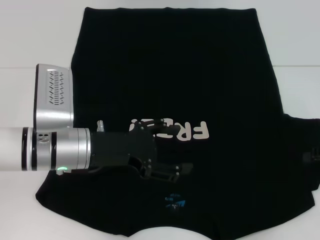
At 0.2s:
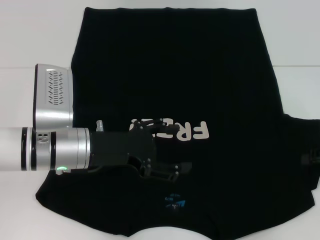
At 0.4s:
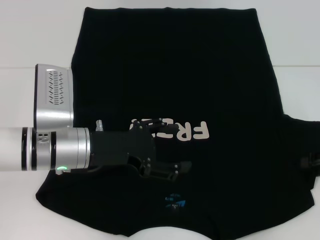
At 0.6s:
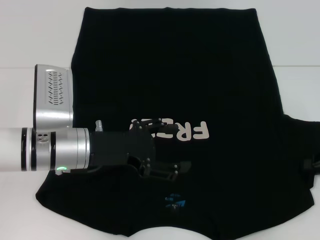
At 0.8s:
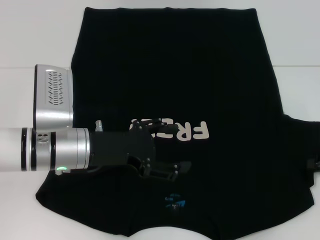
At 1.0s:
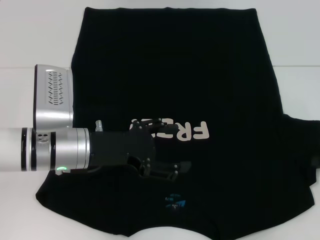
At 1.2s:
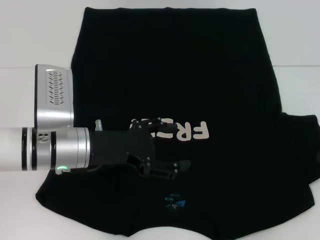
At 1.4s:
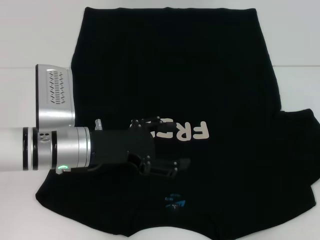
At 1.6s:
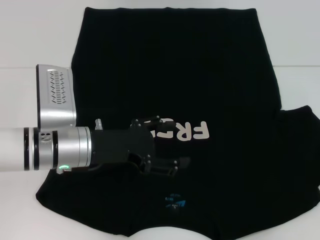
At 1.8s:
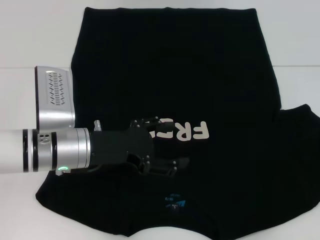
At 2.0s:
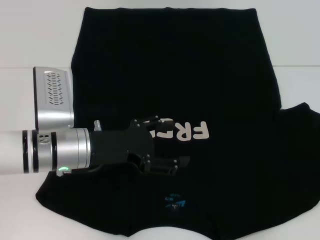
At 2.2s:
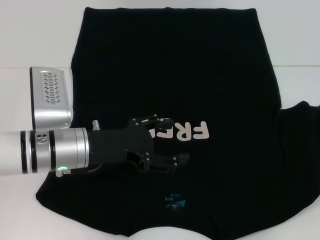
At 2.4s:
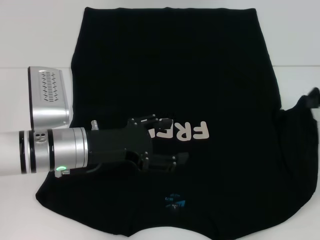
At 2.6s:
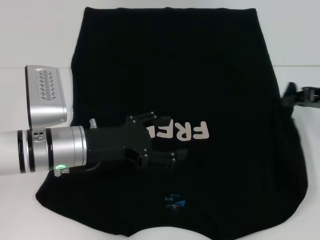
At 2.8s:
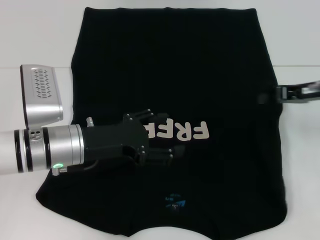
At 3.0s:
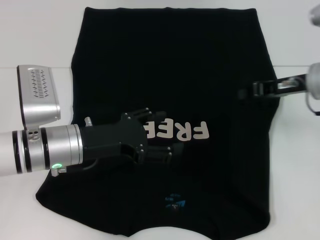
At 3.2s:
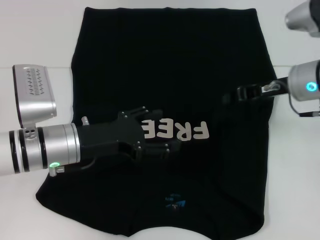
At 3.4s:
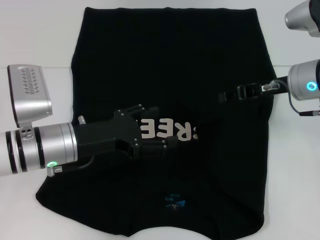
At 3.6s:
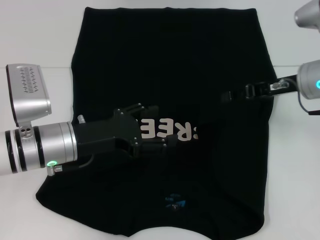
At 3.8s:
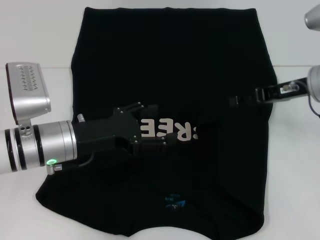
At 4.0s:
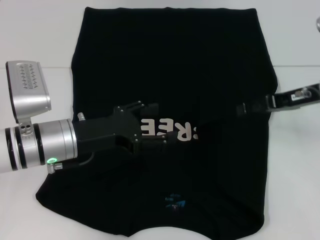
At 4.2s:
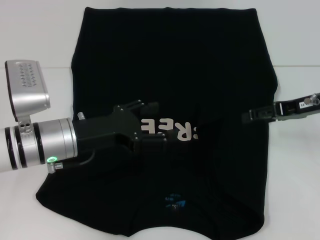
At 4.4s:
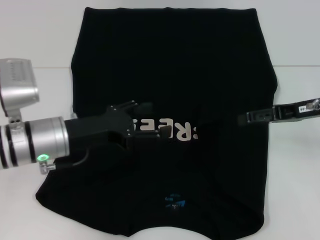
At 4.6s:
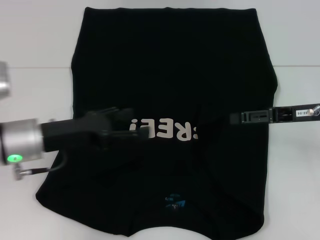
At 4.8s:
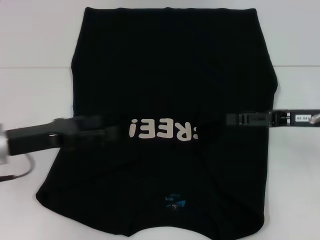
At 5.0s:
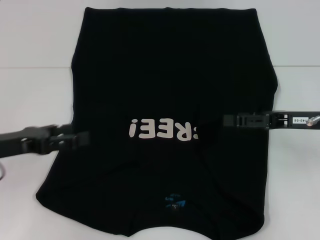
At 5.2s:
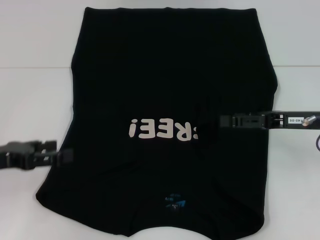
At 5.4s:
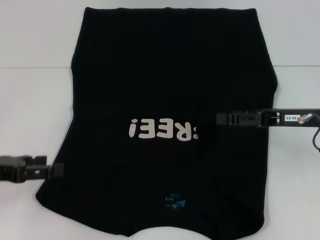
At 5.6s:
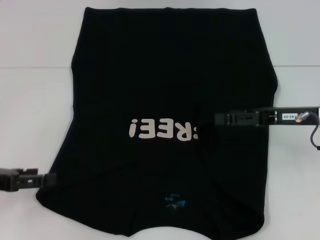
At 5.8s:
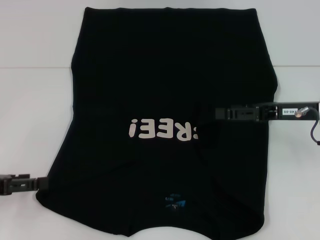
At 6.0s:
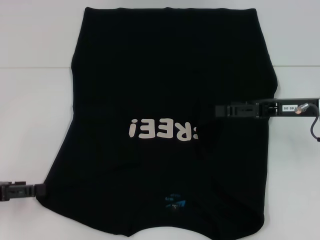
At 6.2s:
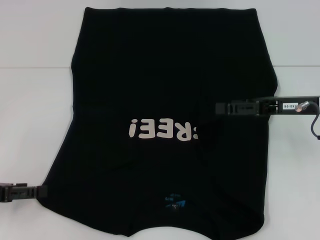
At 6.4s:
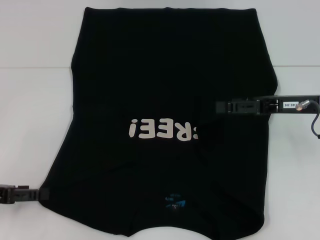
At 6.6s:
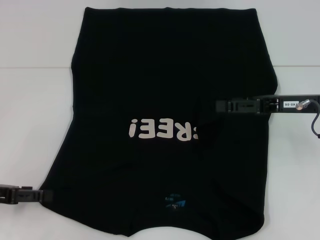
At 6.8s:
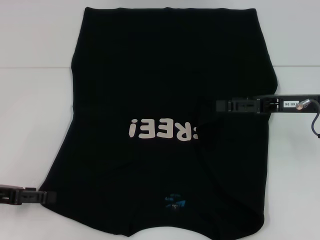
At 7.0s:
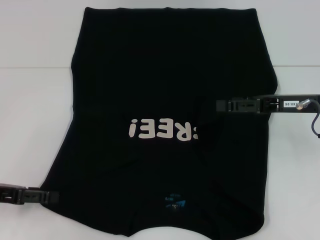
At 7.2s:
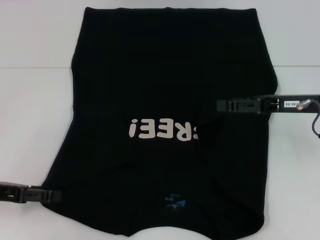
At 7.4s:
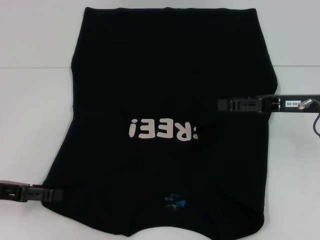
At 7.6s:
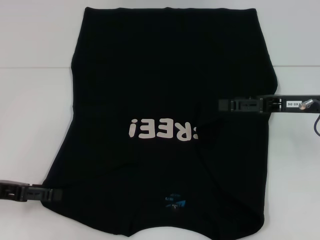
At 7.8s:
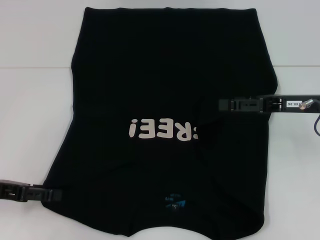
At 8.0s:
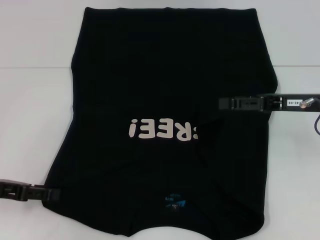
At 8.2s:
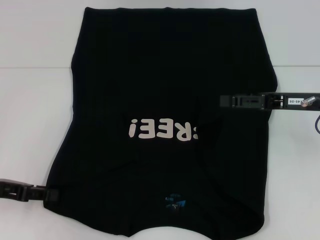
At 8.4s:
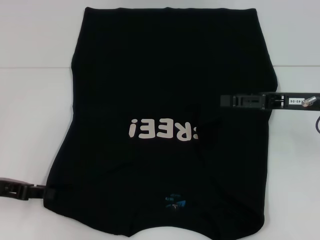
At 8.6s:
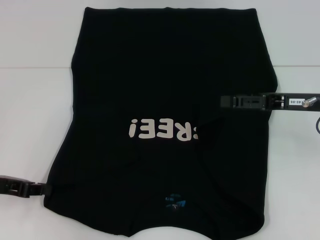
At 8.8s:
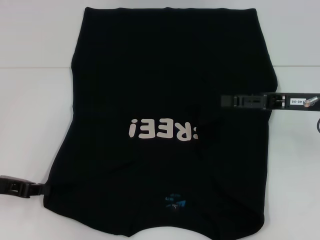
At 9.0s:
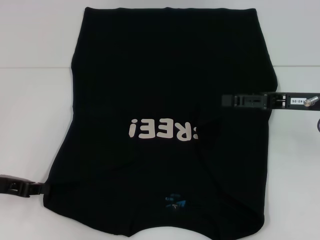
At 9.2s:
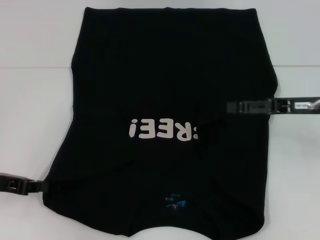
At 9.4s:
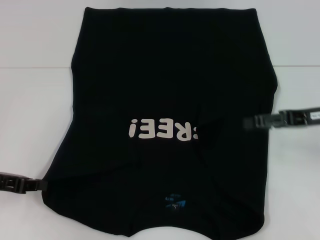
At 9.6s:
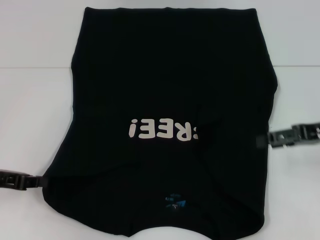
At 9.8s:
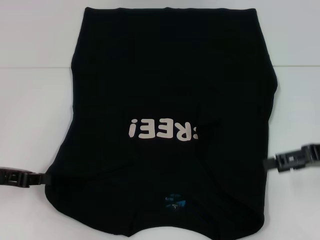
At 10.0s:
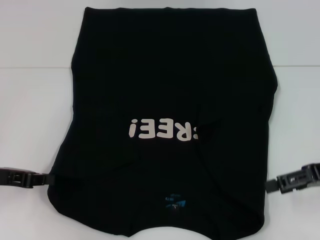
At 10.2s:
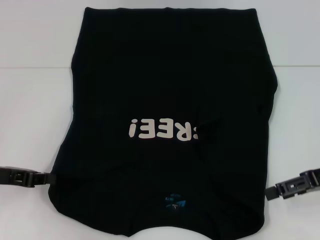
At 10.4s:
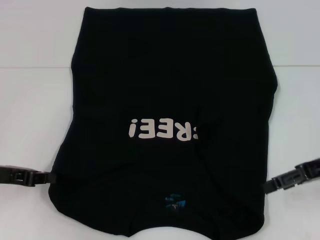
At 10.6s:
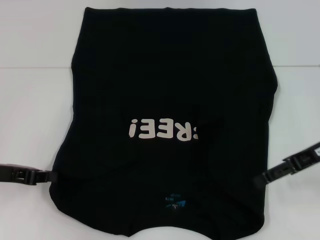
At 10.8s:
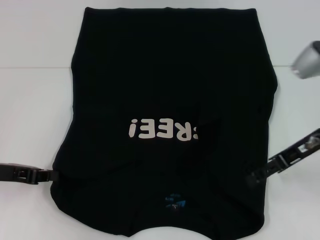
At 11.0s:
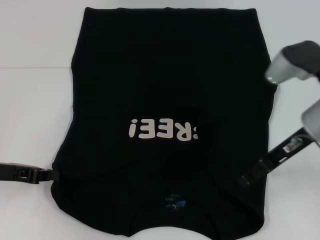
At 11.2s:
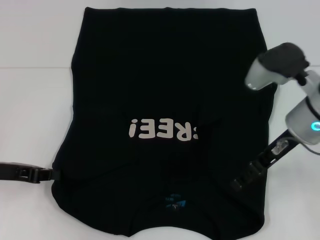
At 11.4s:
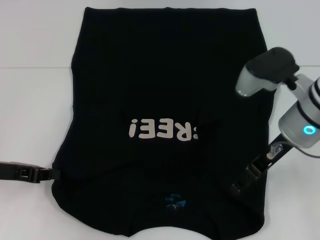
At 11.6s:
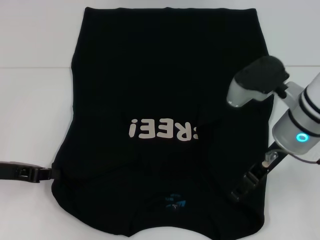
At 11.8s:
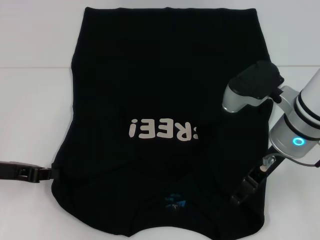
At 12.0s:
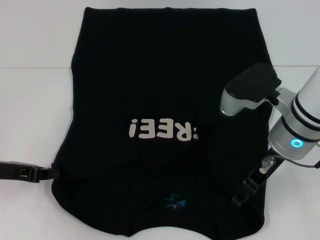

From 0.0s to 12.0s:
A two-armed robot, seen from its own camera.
Step, from 0.0s to 3.4s: Fold the bottom right sleeve with your right hand.
Step, from 3.6s to 8.6s: Grab the bottom left corner with your left hand.
From 0.0s to 1.6s: The right gripper closes.
From 1.6s to 3.0s: The right gripper heads to the left and forward, covering roughly 15 cm.
From 3.0s to 4.4s: The right gripper opens up.
From 4.4s to 6.0s: The left gripper travels to the left and backward by about 20 cm.
From 6.0s to 7.6s: The grippers move only a little.
From 7.6s to 9.0s: The left gripper closes.
From 10.4s to 12.0s: The right gripper moves to the left, roughly 15 cm.

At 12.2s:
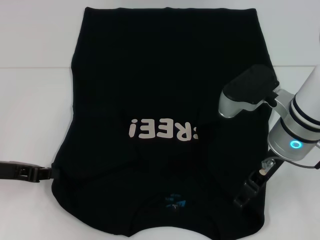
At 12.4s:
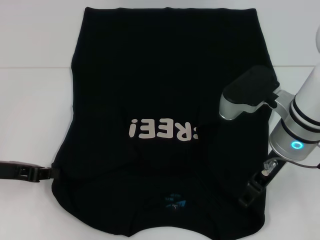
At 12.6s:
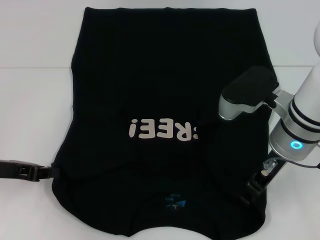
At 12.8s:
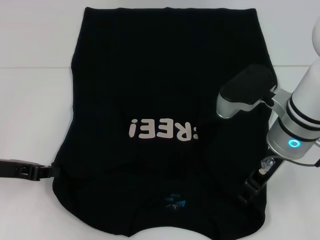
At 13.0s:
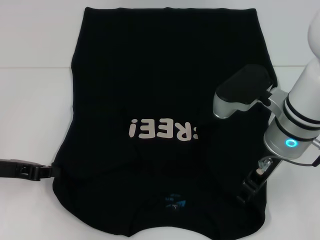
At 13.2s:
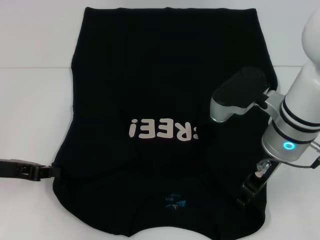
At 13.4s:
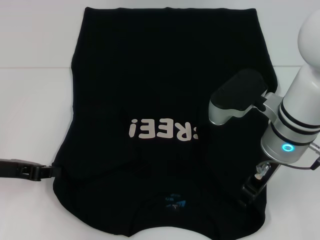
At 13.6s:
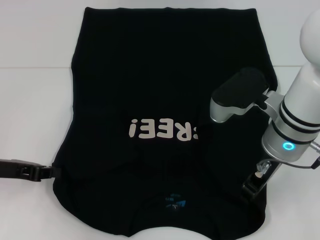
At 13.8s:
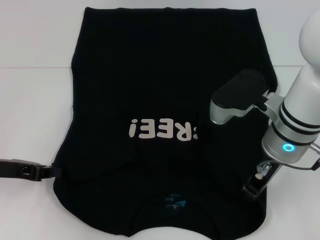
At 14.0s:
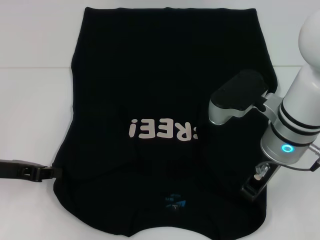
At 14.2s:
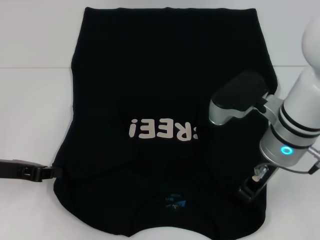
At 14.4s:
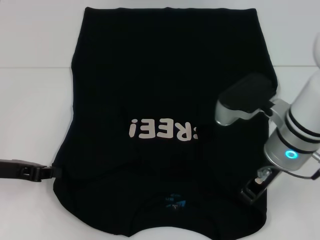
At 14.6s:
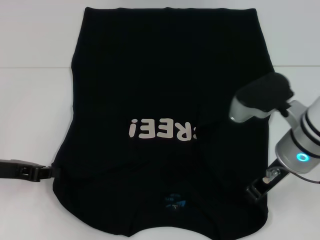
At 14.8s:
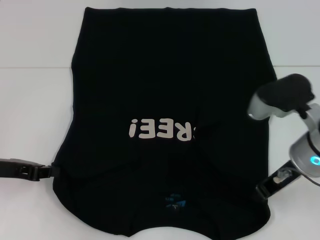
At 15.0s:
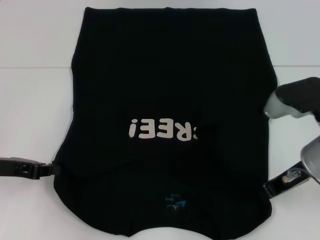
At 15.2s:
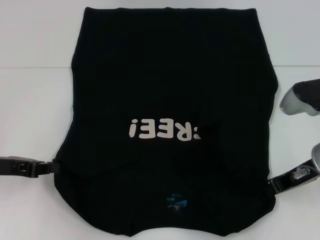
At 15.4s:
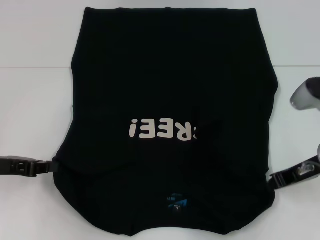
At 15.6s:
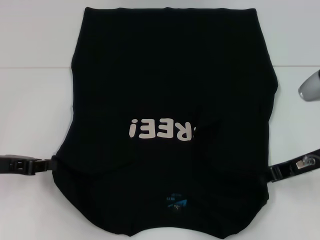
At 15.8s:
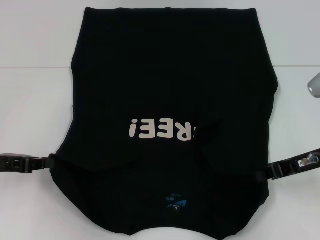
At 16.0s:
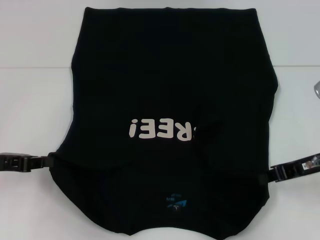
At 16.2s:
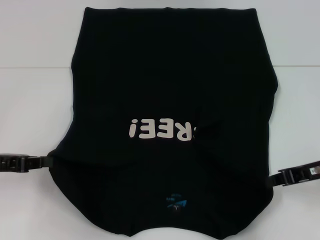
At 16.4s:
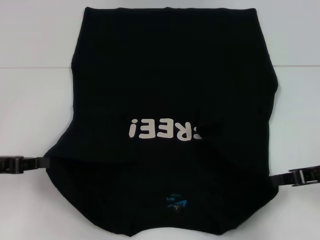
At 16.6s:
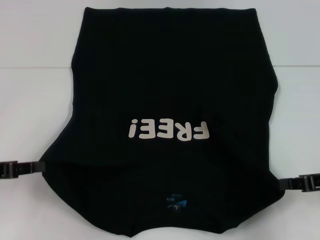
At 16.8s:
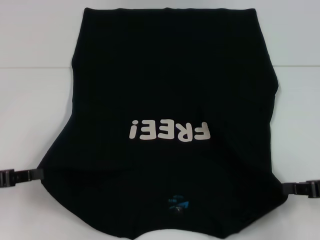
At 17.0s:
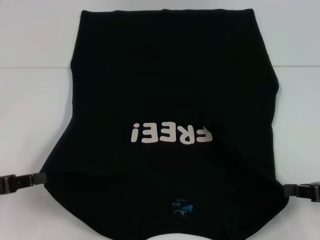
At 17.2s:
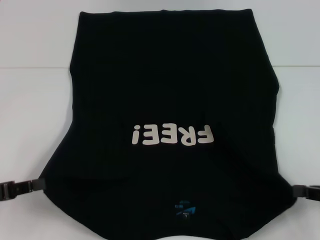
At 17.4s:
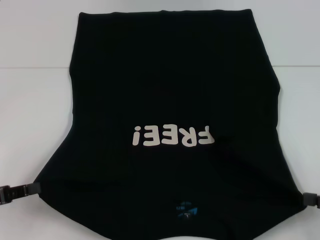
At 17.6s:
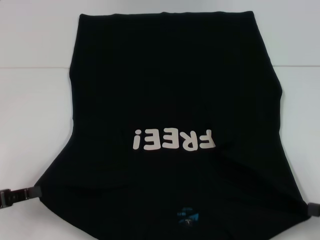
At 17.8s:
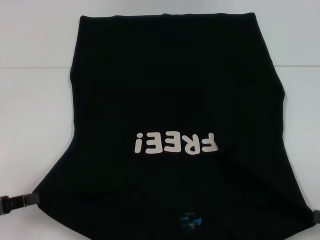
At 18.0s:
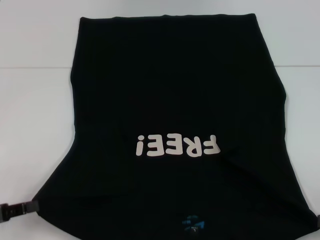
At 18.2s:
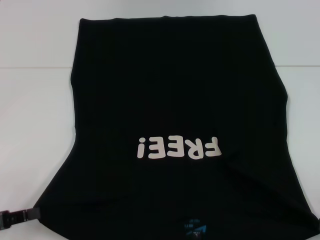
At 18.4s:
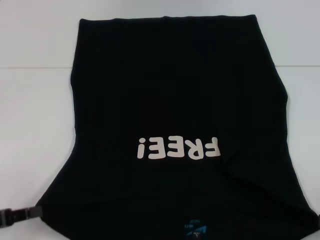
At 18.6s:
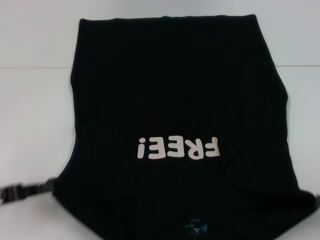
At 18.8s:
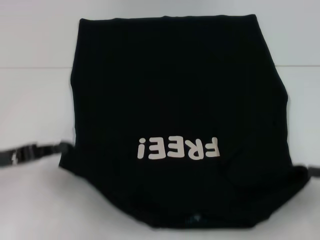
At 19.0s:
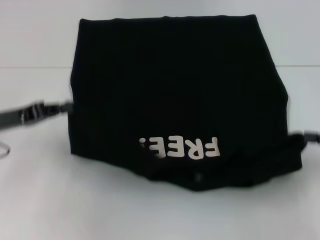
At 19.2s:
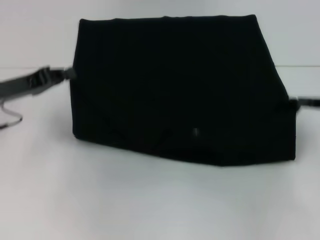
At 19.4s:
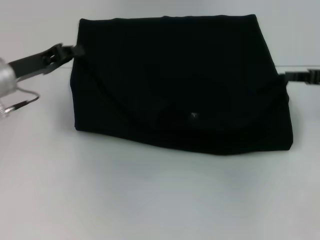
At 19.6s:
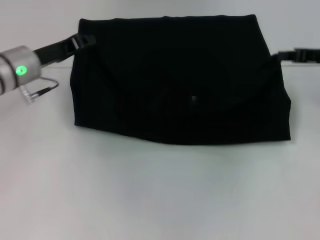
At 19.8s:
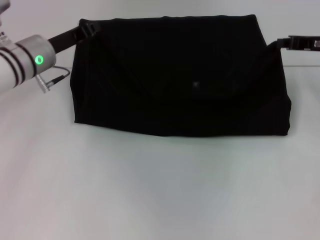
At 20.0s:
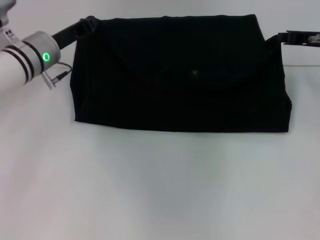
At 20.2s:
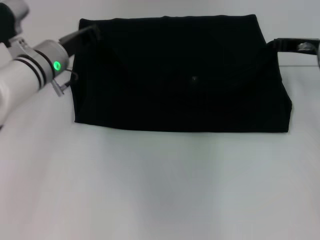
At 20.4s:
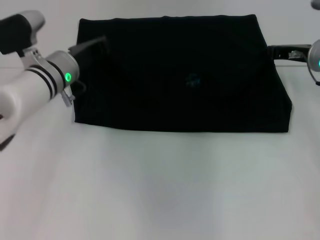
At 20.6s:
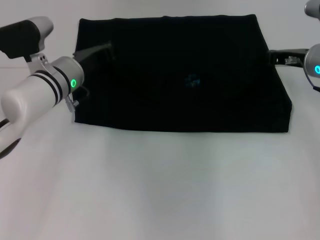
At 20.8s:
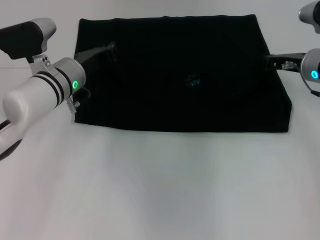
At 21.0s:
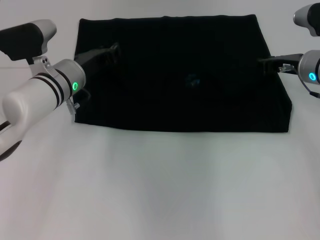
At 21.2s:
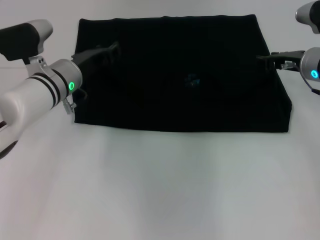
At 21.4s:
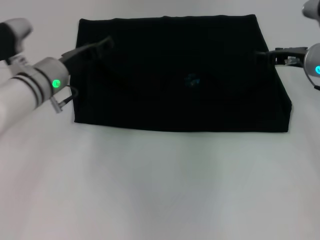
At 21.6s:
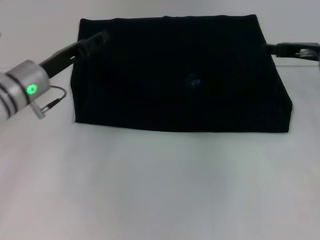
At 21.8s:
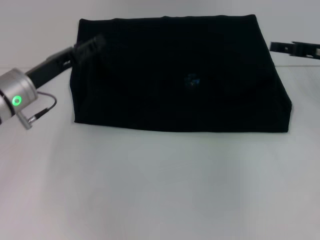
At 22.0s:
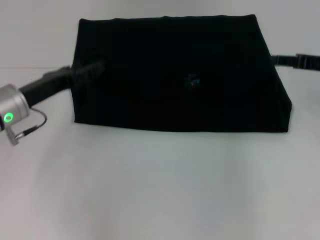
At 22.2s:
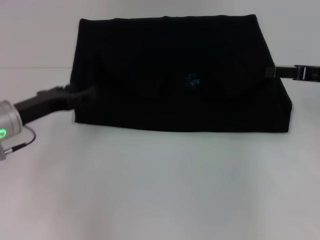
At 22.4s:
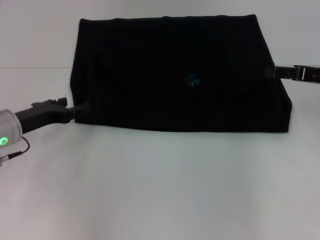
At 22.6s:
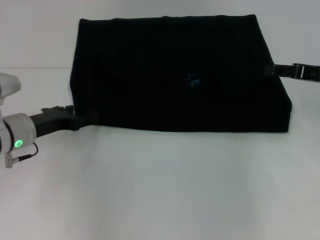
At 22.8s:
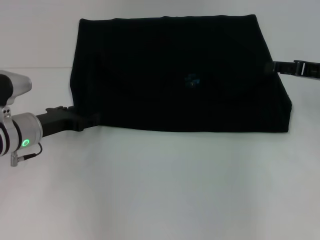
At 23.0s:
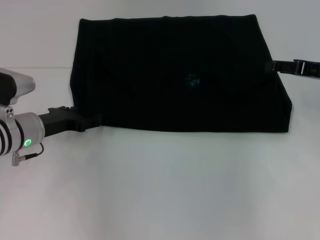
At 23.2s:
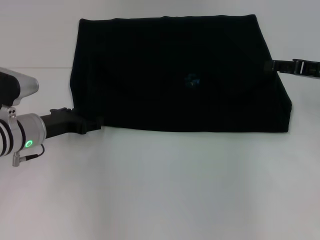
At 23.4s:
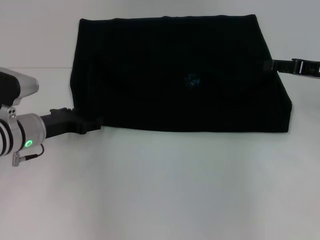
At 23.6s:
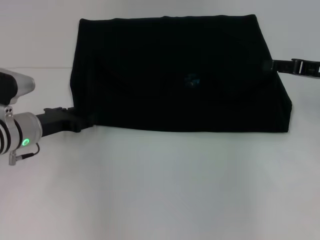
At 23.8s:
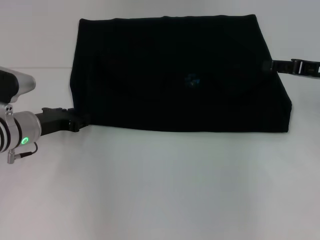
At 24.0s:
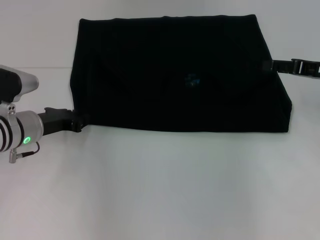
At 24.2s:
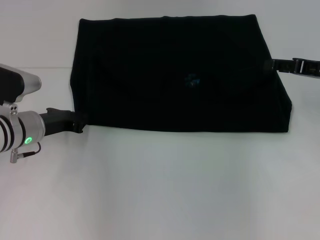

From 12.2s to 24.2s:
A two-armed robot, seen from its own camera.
Step, from 12.2s to 15.2s: Grab the bottom right corner with your right hand.
Step, from 15.4s to 21.4s: Fold the clothes with your left hand.
Step, from 15.4s to 21.4s: Fold the clothes with your right hand.
From 12.2s to 13.8s: The right gripper closes its fingers.
From 13.8s to 15.2s: The right gripper shifts roughly 10 cm to the right.
From 15.2s to 16.6s: The right gripper goes roughly 5 cm to the right.
From 16.6s to 18.2s: The left gripper shifts roughly 5 cm backward; the right gripper heads backward, to the right and downward, covering some 15 cm.
From 18.2s to 19.8s: The left gripper goes approximately 30 cm forward and to the right; the right gripper travels forward and upward by about 30 cm.
From 19.8s to 21.2s: The left gripper ends up roughly 5 cm from where it was, and opens; the right gripper ends up about 5 cm from where it was.
From 21.2s to 22.6s: The left gripper moves to the left and backward, roughly 10 cm, and opens; the right gripper is displaced to the right and backward by roughly 10 cm, and opens up.
From 22.6s to 24.2s: The left gripper closes.
